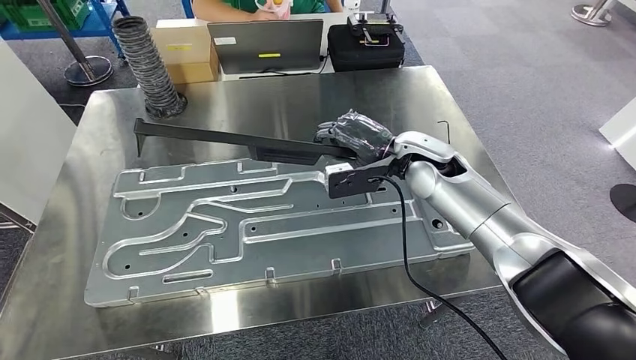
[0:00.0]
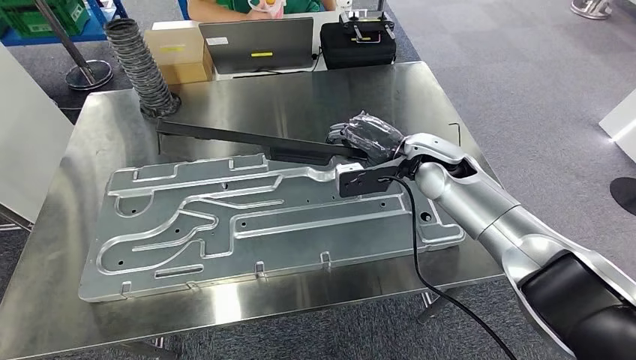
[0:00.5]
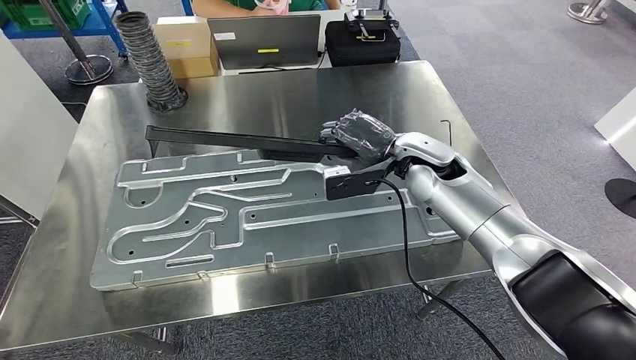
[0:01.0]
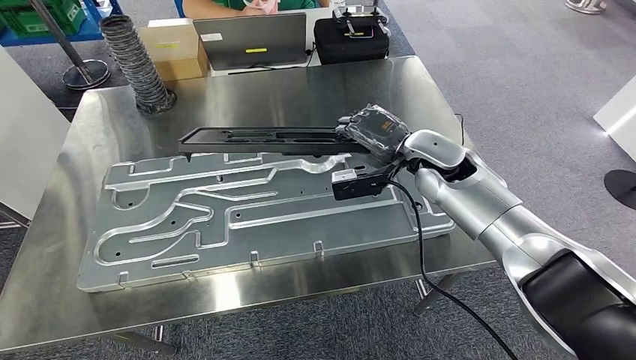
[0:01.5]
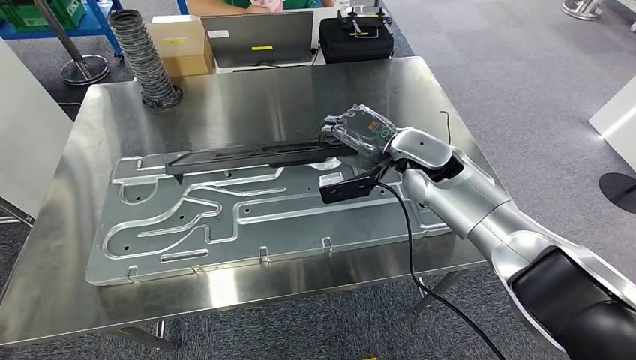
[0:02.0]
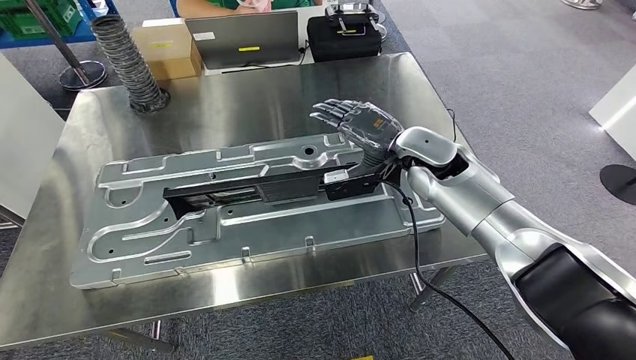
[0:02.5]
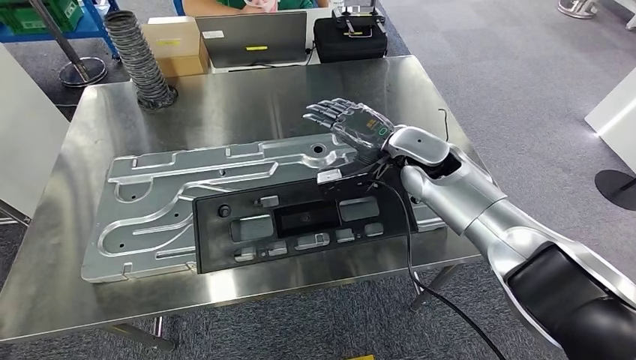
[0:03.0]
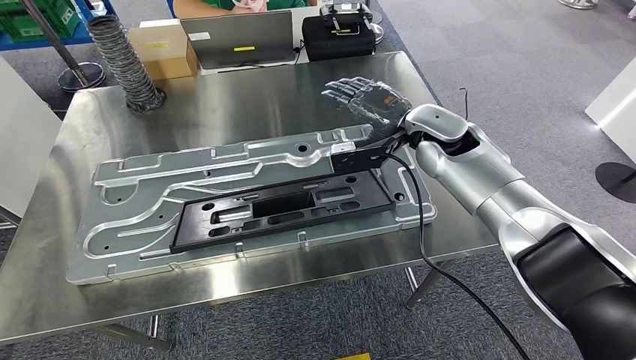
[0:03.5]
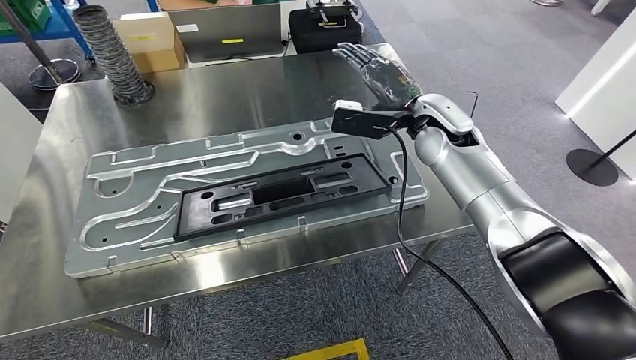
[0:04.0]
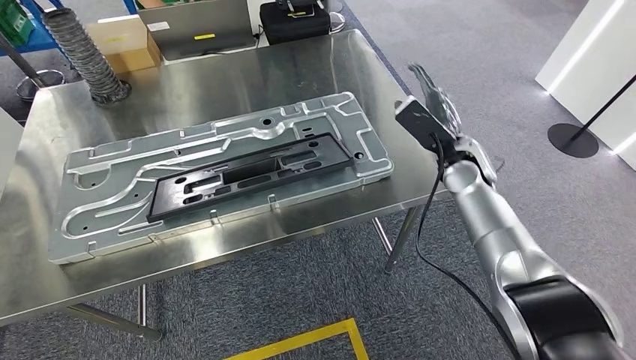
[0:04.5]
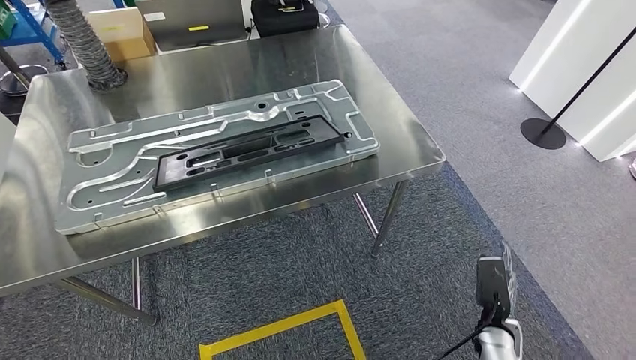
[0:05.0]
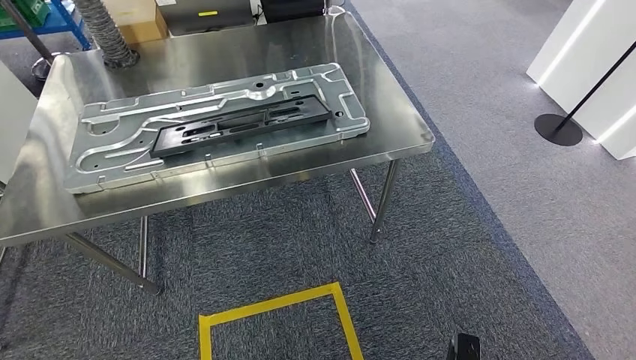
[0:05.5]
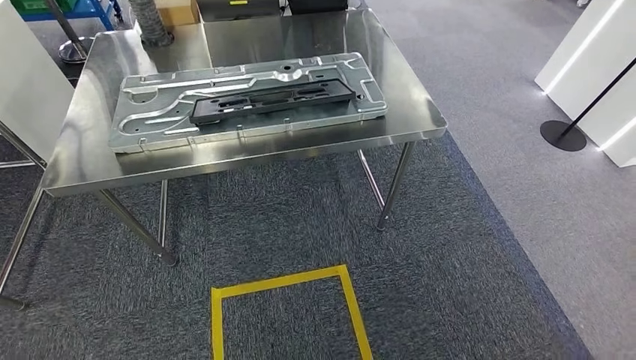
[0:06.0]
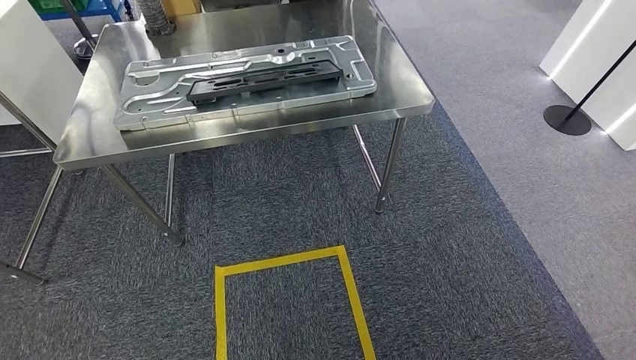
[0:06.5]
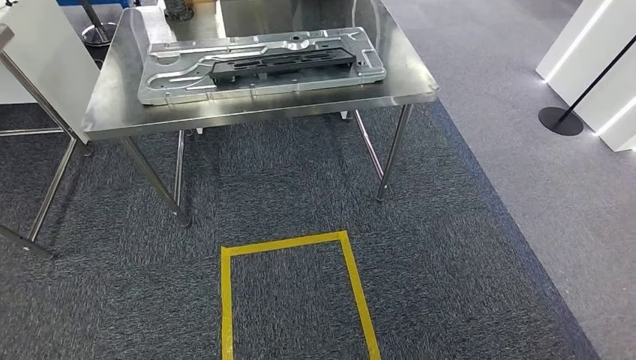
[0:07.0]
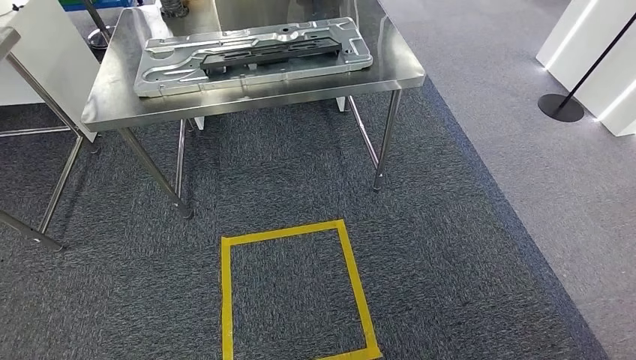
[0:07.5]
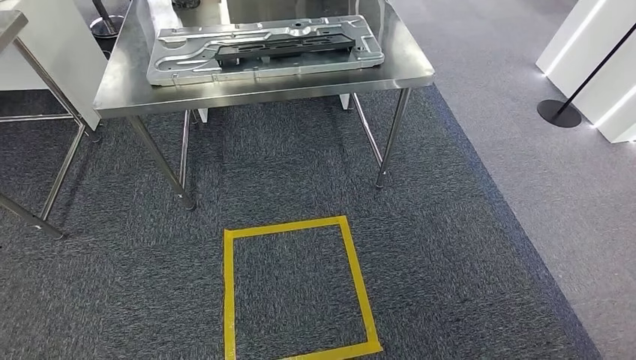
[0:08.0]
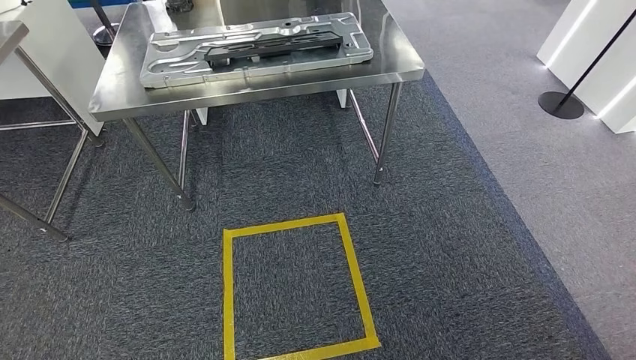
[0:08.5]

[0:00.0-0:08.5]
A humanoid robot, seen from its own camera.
Step, 0:00.0 to 0:03.0: Insert the large material into the corresponding slot on the workbench.
Step, 0:05.0 to 0:08.5: Return to the initial position at the shelf.
